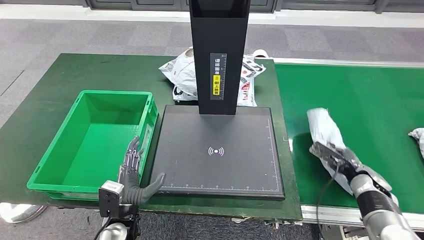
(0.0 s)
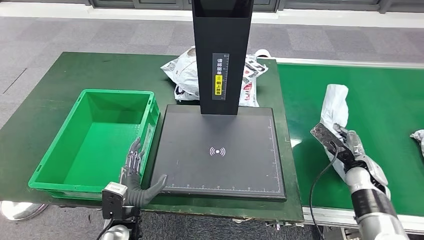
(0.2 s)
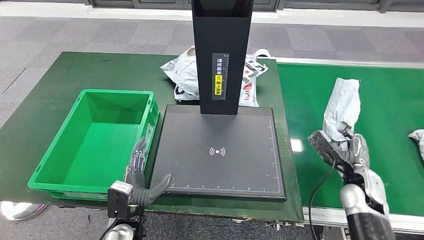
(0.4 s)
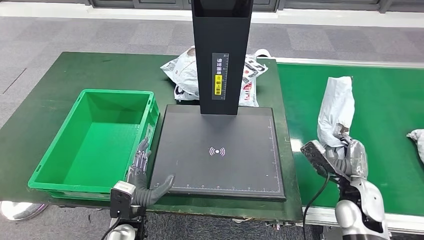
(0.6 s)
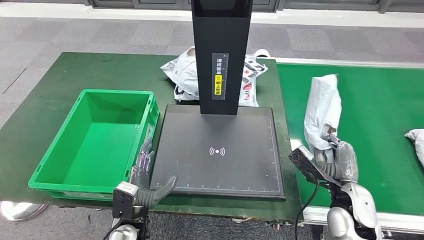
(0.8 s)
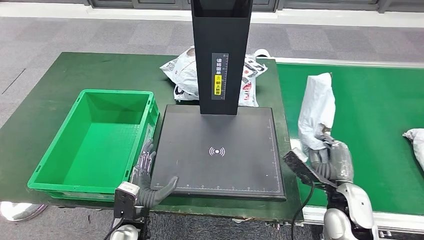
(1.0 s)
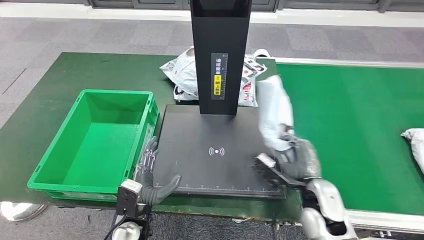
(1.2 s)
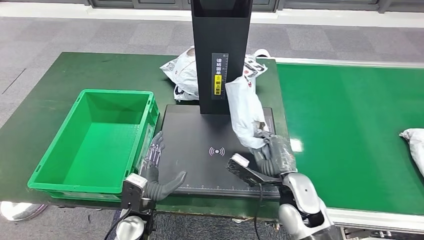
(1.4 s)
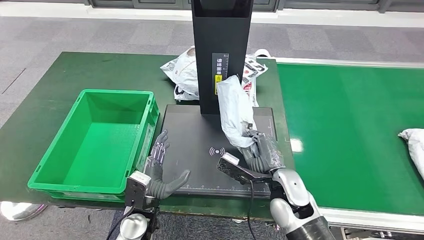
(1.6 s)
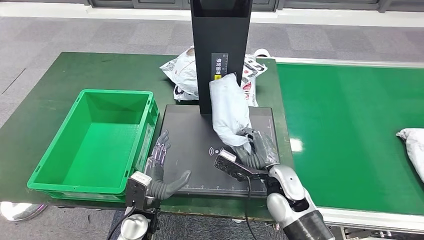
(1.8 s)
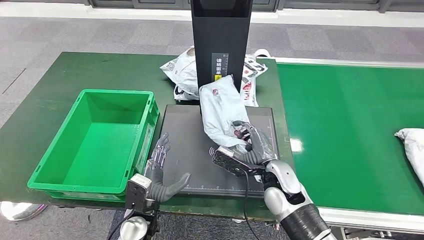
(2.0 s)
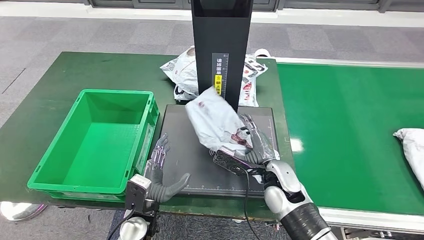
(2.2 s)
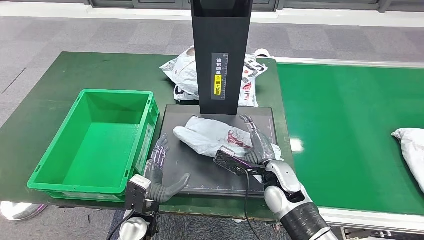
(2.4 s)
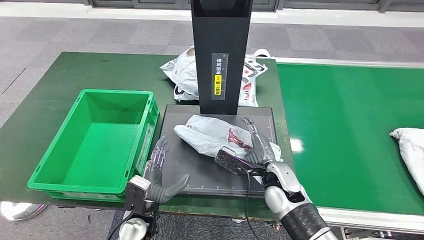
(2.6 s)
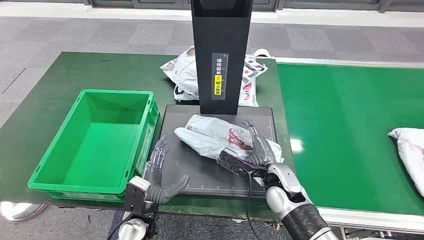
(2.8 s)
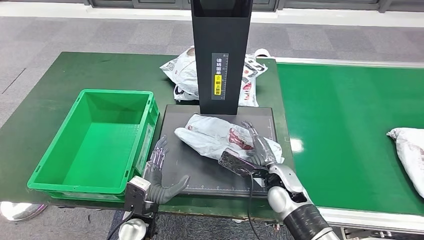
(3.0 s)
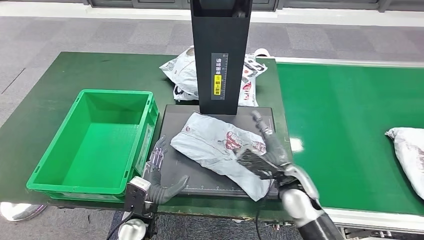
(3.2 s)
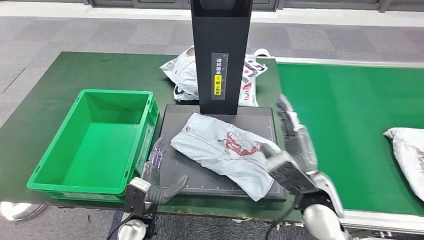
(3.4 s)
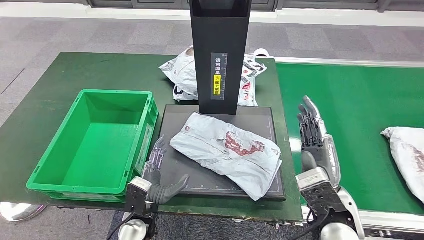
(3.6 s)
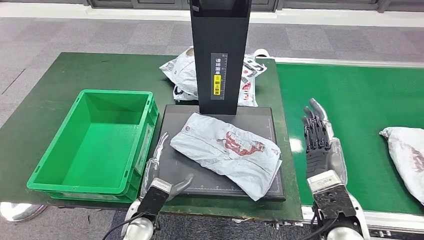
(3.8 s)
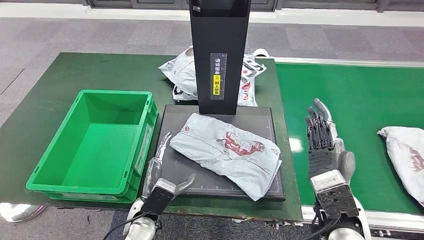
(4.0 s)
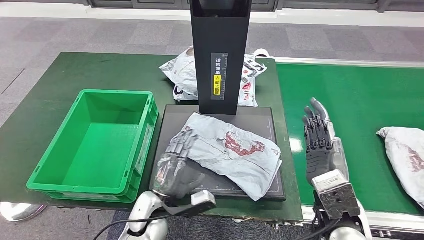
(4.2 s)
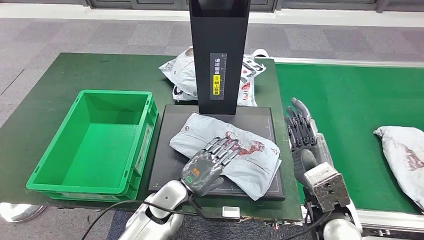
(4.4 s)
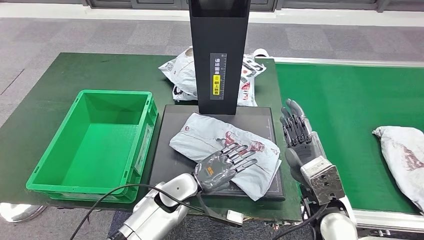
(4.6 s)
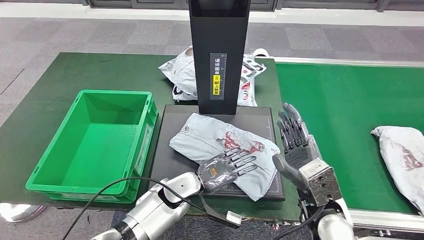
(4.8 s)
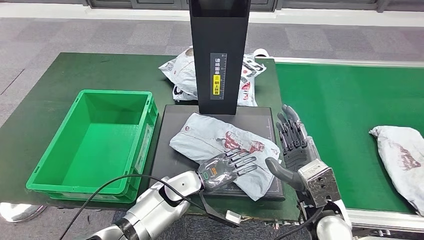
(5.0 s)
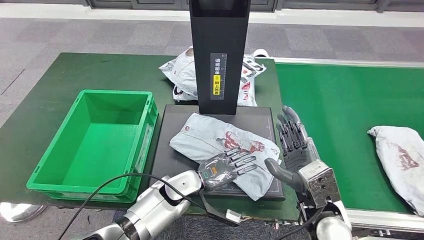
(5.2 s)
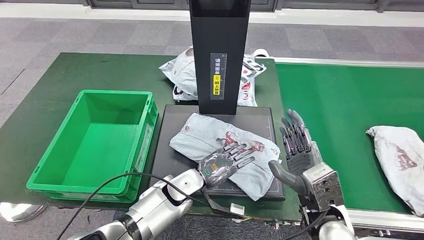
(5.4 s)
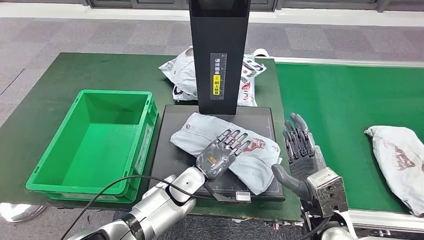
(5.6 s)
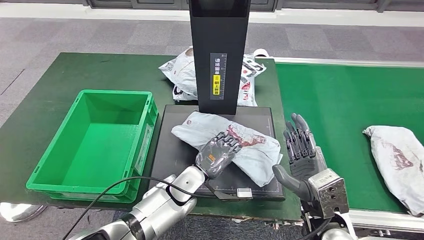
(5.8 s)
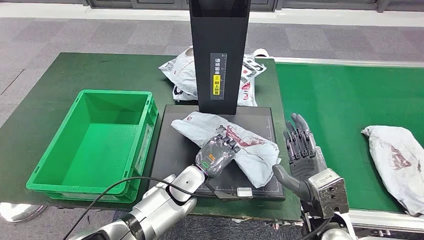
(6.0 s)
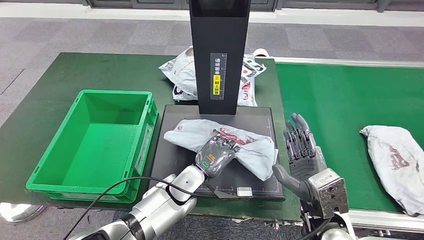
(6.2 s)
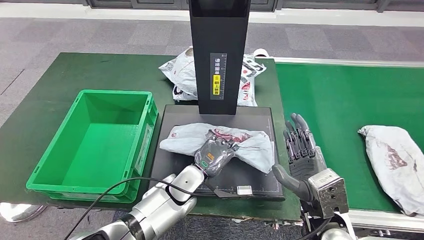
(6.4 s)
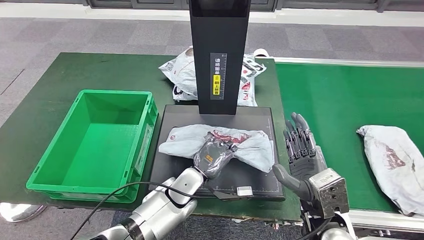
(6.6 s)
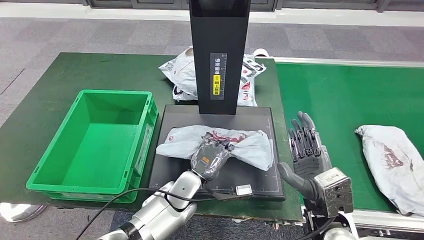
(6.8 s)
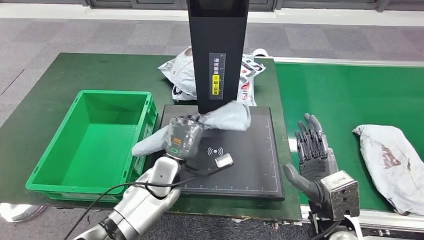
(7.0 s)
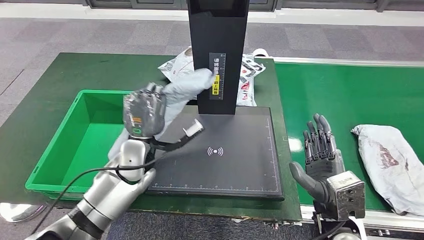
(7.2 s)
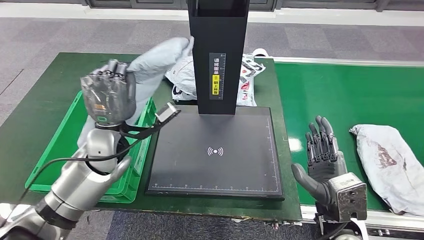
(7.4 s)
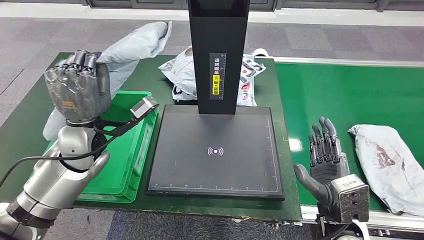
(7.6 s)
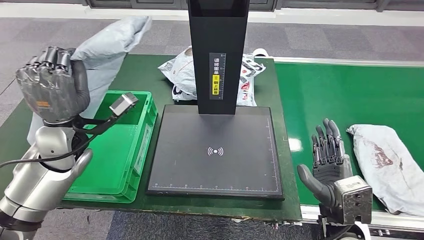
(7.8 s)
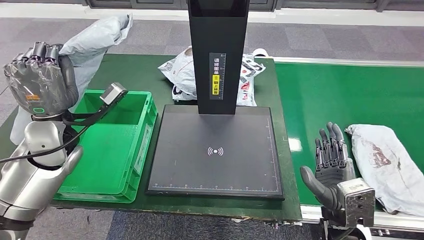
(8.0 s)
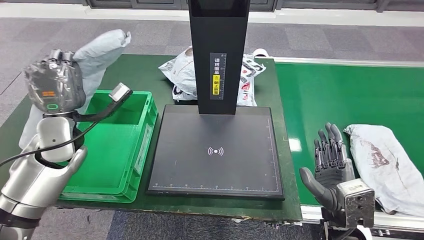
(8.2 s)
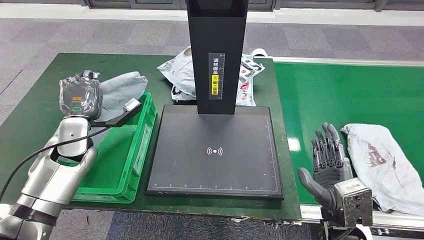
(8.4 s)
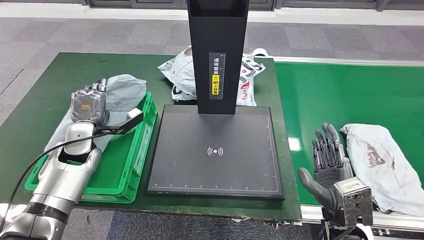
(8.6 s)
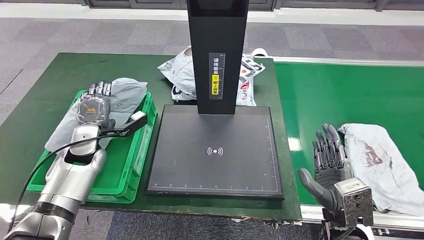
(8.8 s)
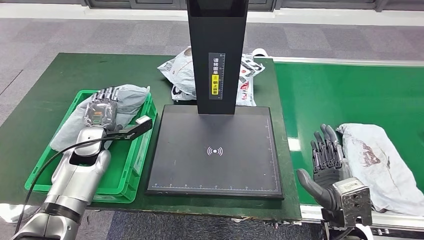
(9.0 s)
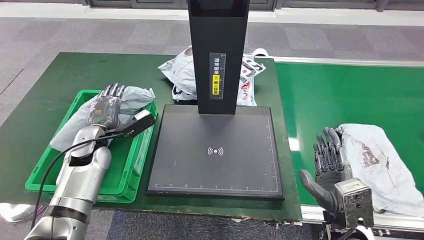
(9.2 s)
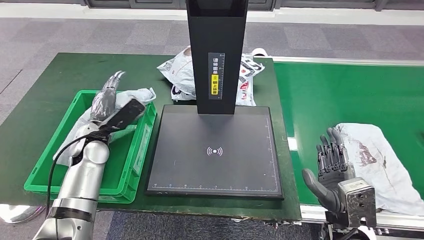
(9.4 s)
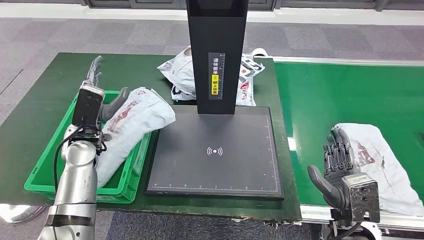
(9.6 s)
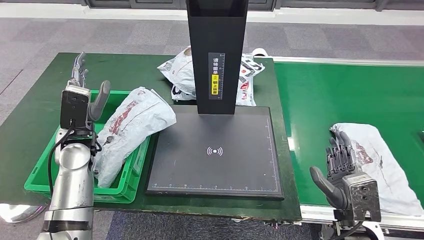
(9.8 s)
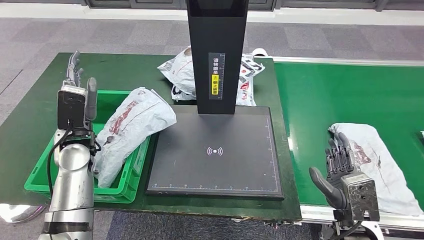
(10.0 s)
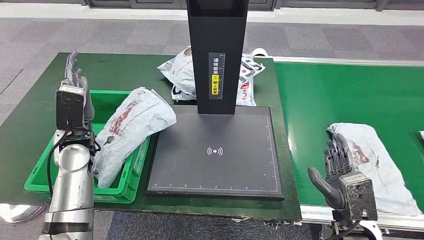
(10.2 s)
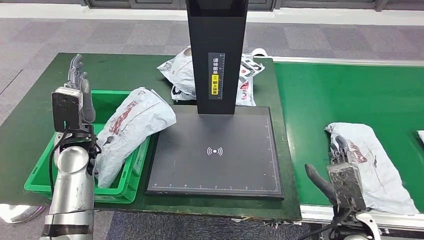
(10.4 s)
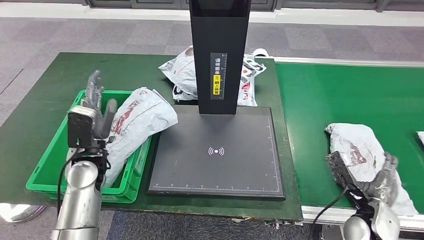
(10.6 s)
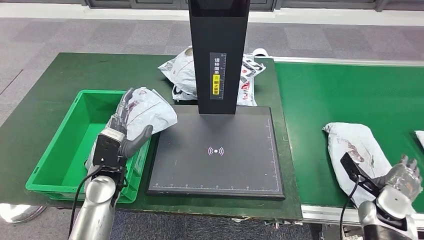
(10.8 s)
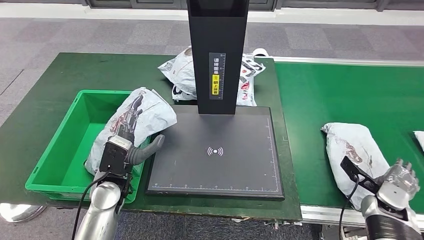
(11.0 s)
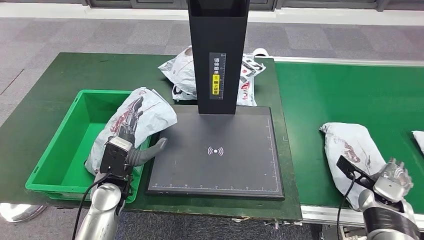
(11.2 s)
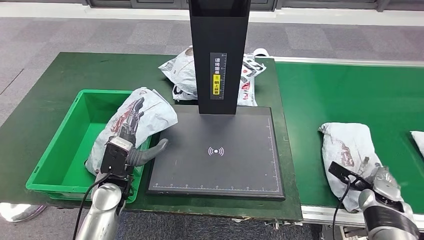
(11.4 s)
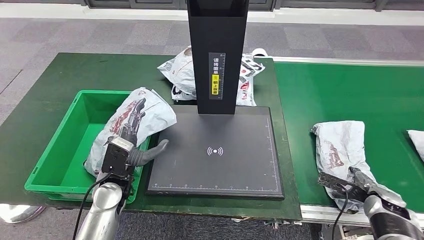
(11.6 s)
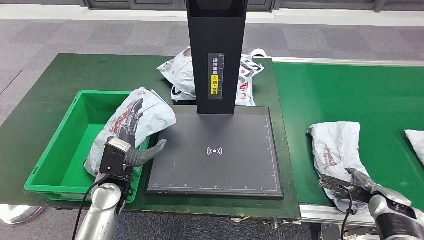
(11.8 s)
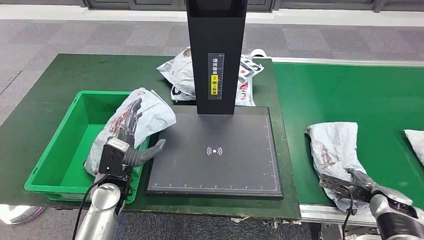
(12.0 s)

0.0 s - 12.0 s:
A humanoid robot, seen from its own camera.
Step, 0.8 s - 2.2 s: Place the parcel onto the inbound machine.
Step, 3.4 s - 8.0 s: Pick up the parcel from the inbound machine.
Step, 8.4 s - 11.4 s: Put the parcel inside the courier box.
1.6 s - 3.0 s: The hands move only a little.
4.4 s - 6.0 s: The left hand moves some 5 cm.

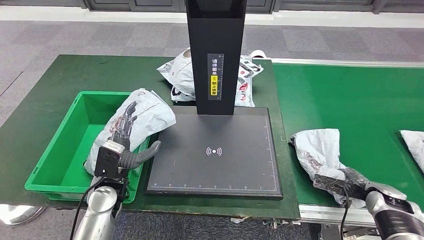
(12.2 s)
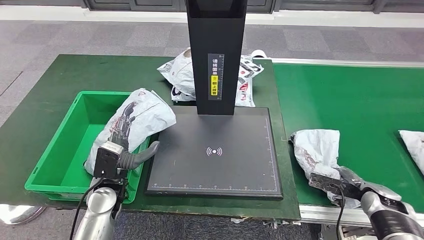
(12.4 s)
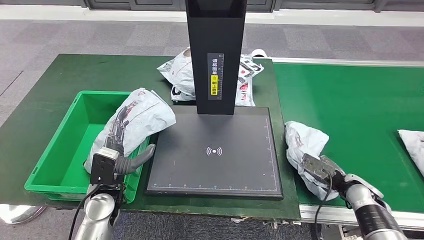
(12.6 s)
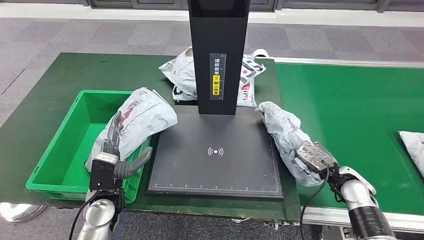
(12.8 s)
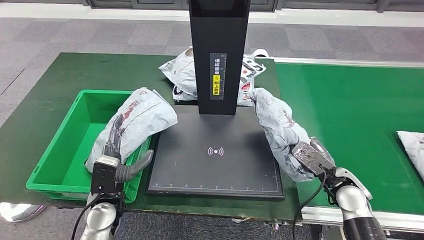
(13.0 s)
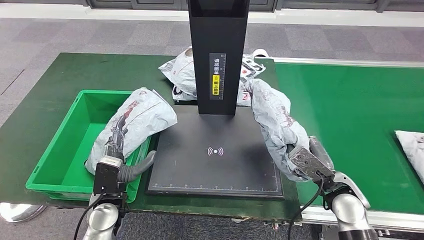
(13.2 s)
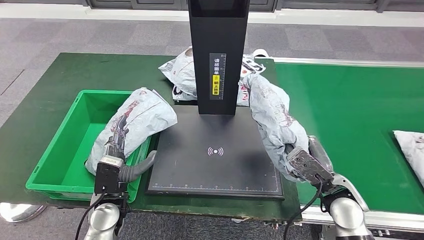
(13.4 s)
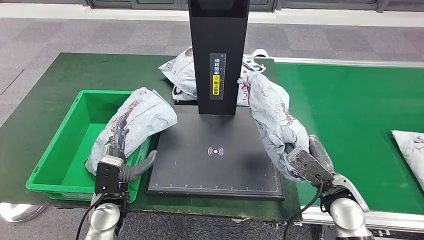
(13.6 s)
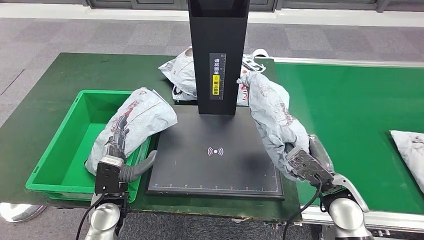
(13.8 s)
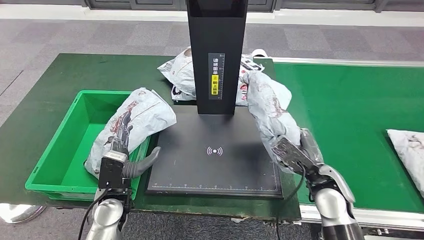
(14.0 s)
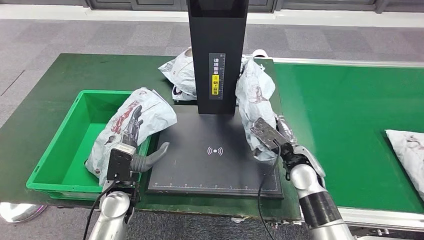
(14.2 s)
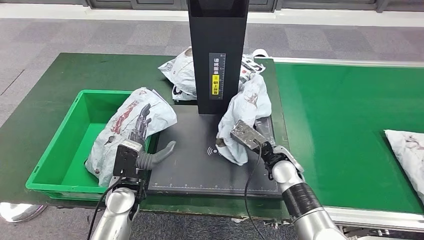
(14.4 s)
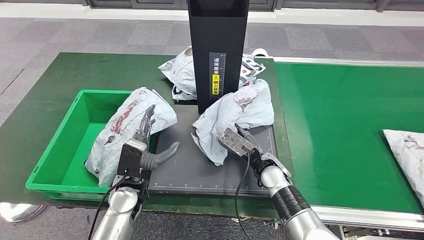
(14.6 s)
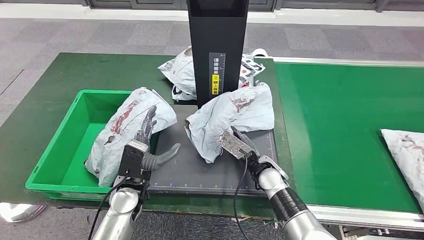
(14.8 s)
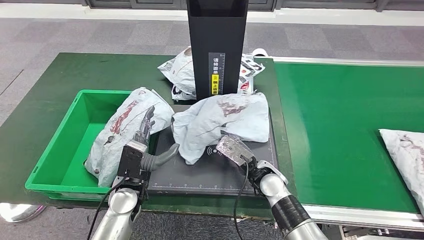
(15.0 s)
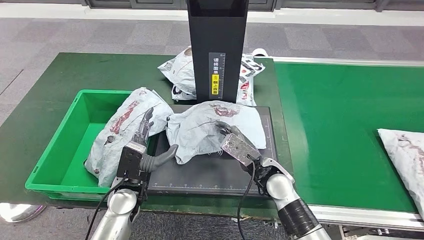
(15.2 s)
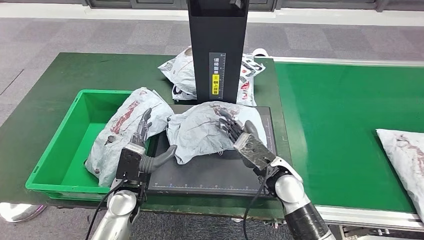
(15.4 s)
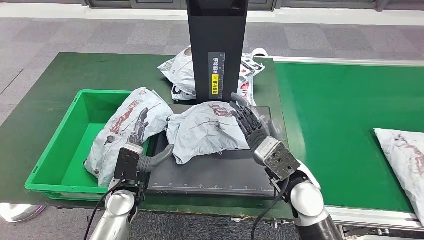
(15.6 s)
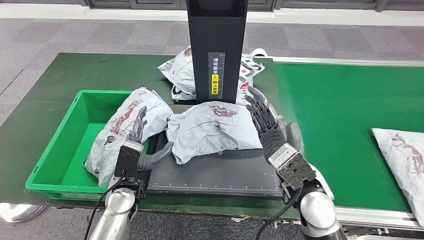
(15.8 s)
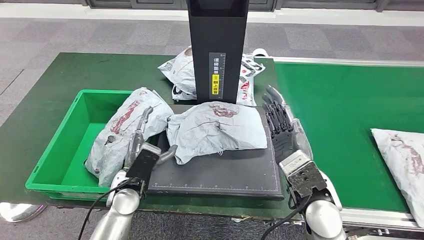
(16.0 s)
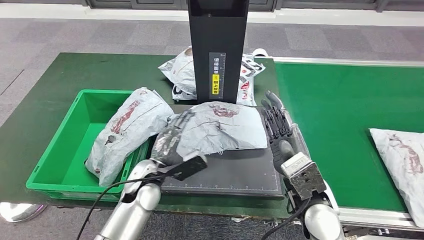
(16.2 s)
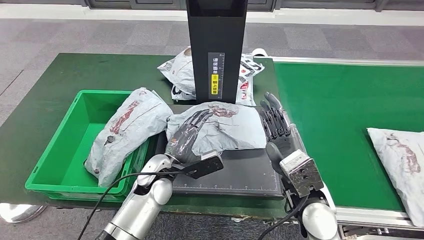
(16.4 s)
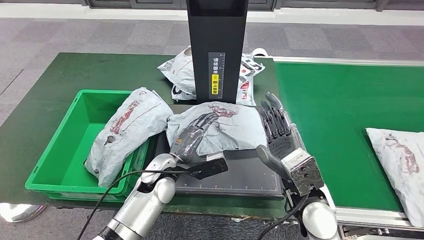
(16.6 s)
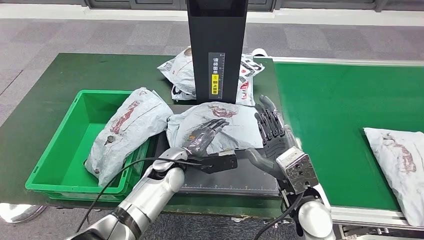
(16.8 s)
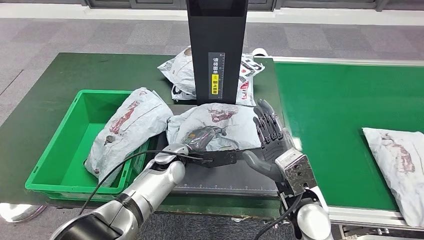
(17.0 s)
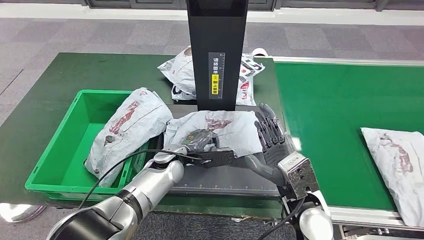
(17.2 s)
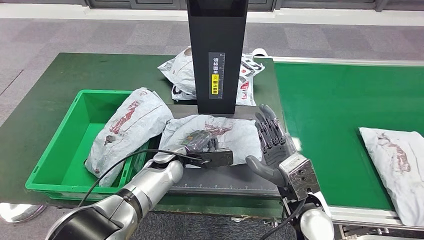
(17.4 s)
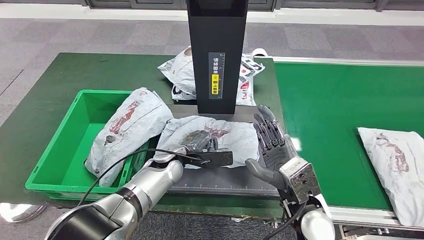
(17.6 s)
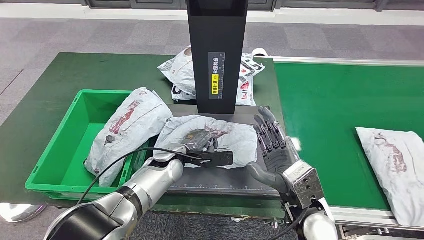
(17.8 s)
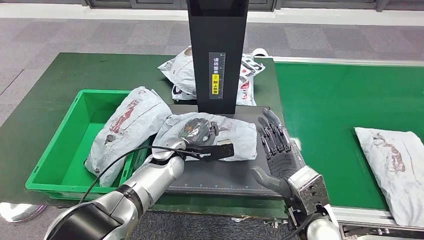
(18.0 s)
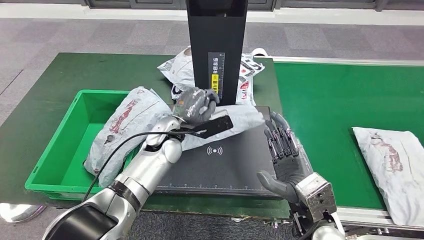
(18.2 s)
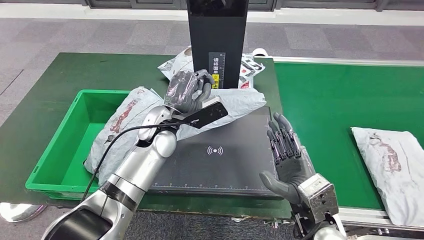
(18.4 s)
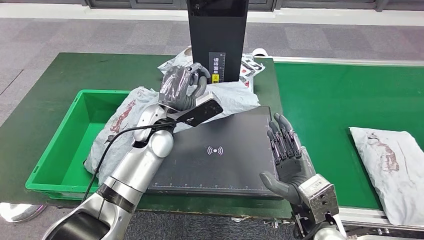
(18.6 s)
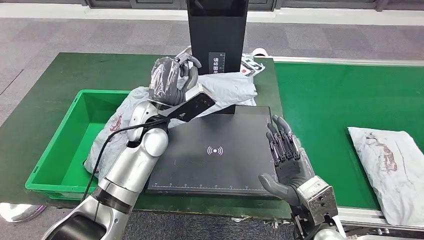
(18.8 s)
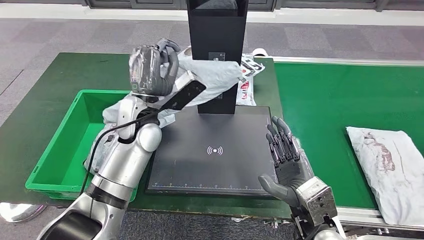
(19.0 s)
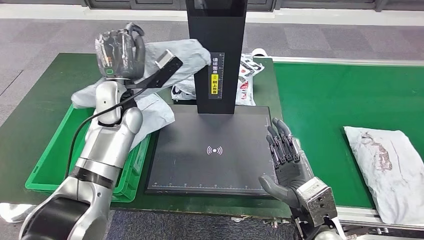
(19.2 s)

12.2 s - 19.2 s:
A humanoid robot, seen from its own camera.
Step, 12.2 s - 13.8 s: Pick up the parcel from the conveyor belt.
Step, 14.6 s - 17.8 s: Place the parcel onto the inbound machine.
16.4 s - 17.8 s: The left hand shifts approximately 5 cm forward.
